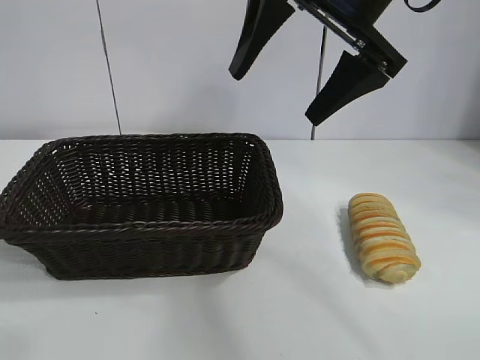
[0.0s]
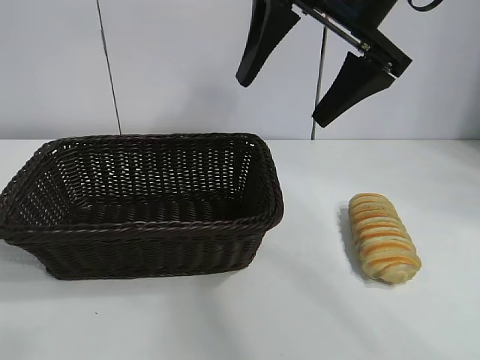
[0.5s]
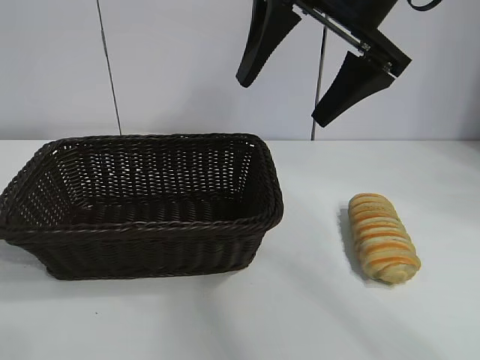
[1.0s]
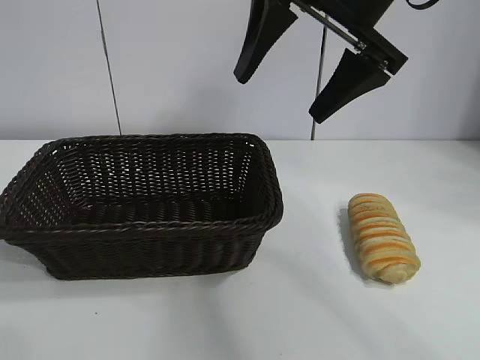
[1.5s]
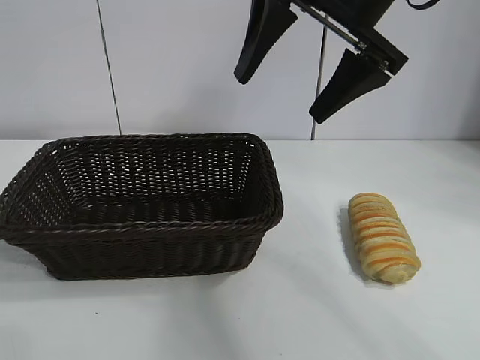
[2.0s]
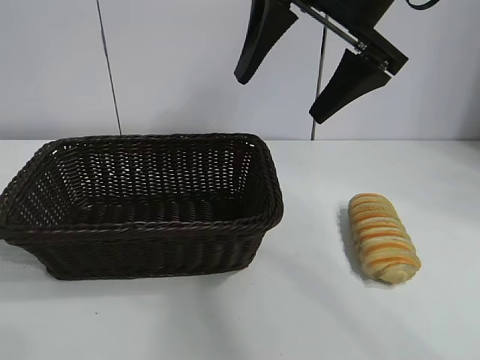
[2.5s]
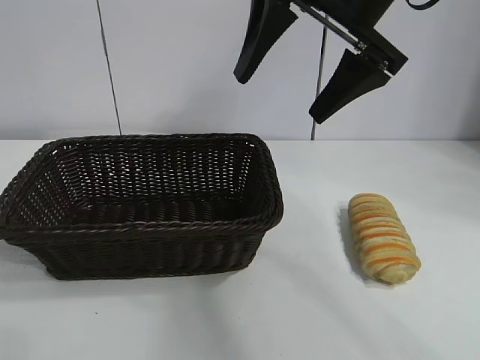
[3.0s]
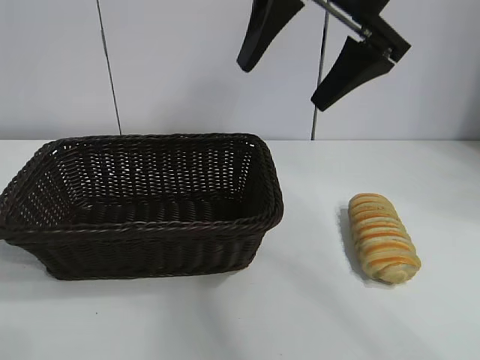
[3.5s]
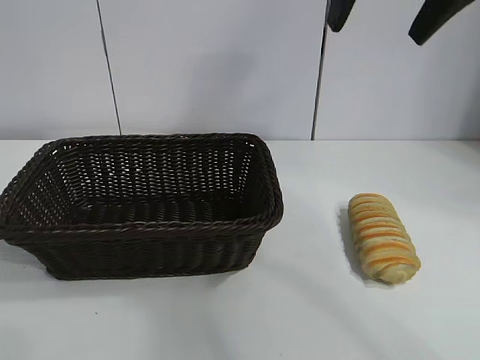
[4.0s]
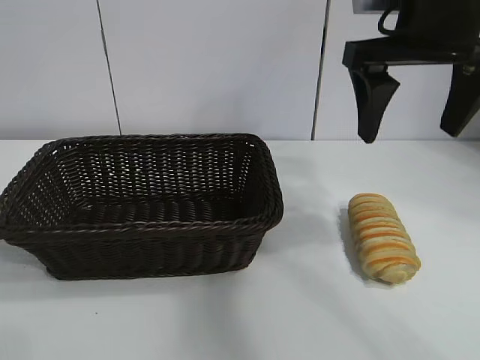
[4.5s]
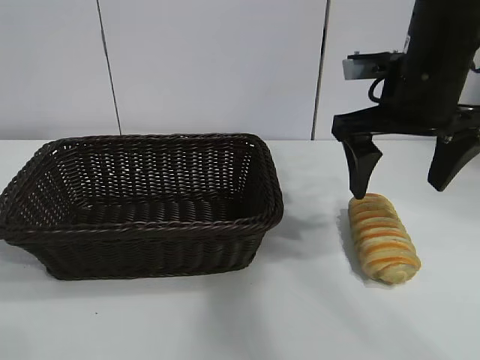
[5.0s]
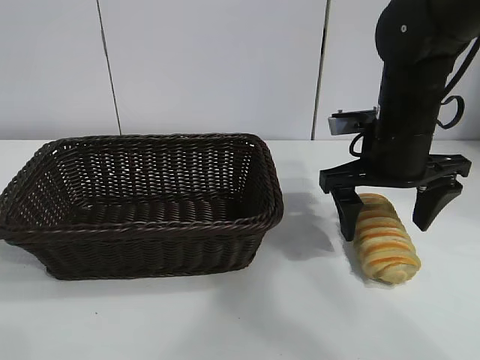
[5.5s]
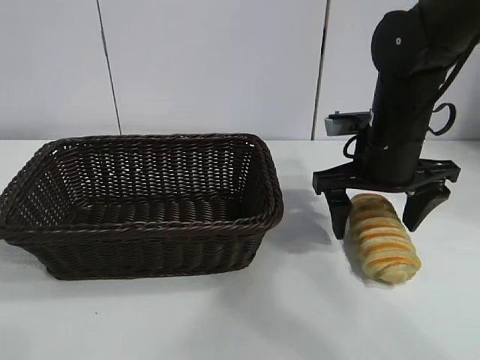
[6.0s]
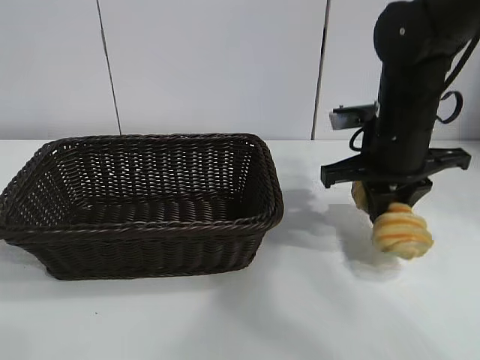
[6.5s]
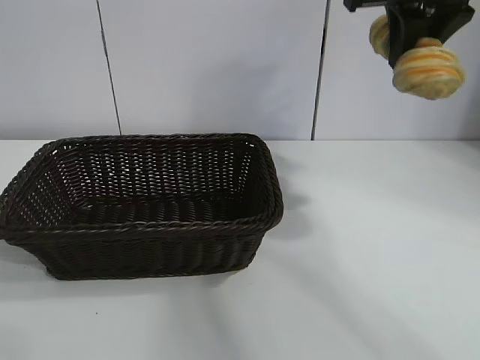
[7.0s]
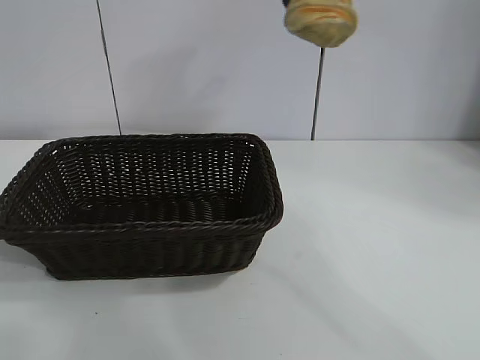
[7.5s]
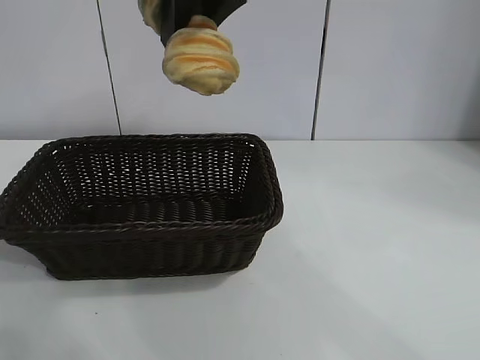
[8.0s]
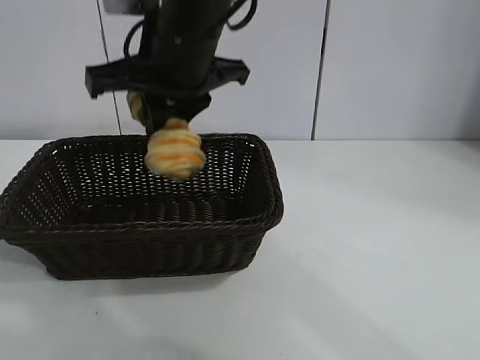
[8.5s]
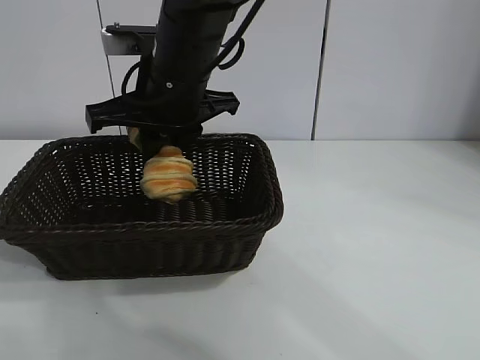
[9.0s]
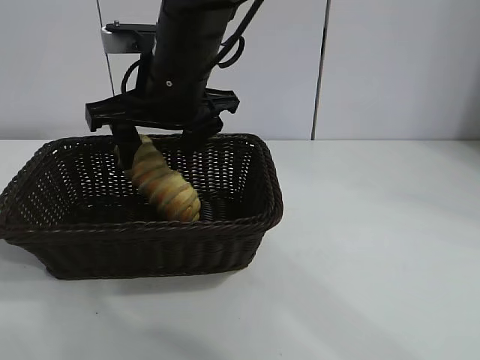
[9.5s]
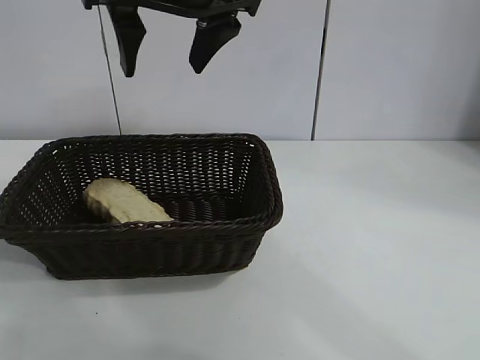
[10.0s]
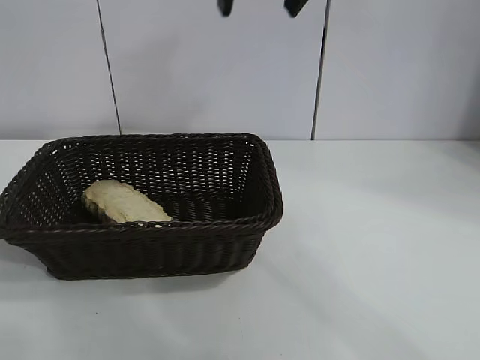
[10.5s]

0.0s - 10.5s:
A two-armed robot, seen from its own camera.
Task of the whole recording: pick up the long bread and put it into the basket.
Step, 0.0s - 6.0s: Grasp the long bread with right gripper.
Step, 6.5s - 9.5s: Place the long bread in the basket with right gripper.
